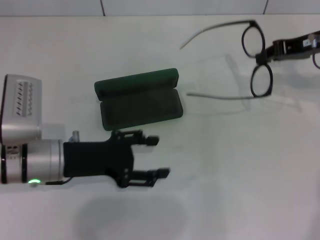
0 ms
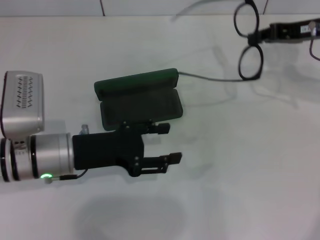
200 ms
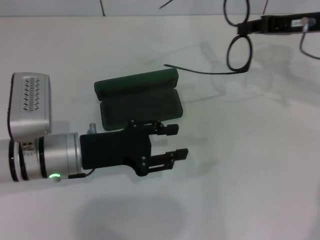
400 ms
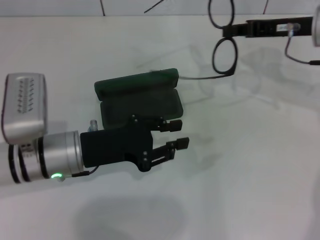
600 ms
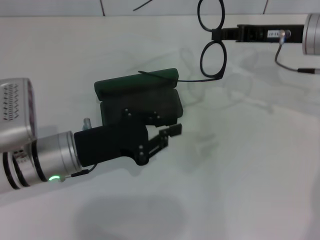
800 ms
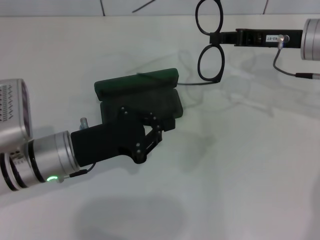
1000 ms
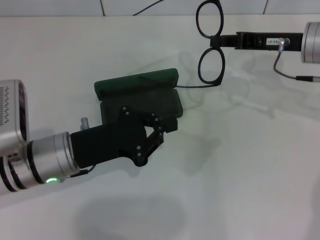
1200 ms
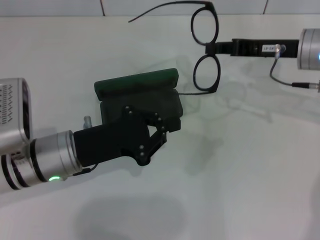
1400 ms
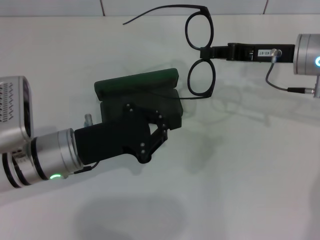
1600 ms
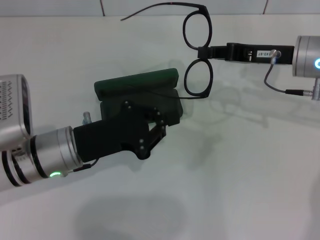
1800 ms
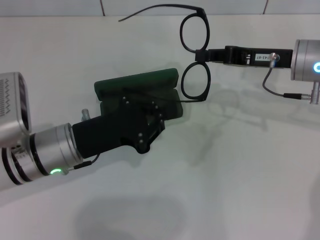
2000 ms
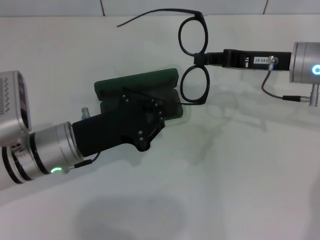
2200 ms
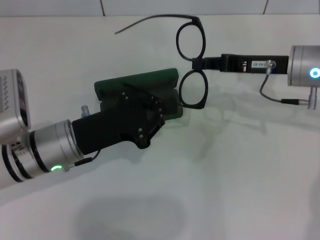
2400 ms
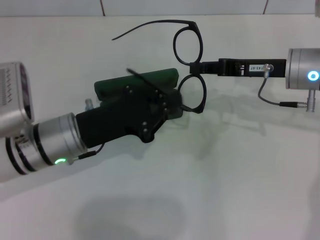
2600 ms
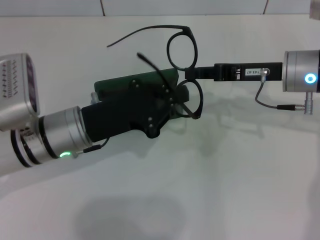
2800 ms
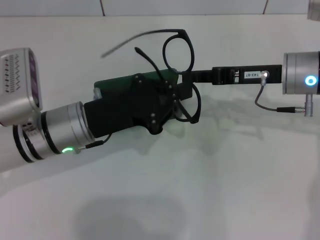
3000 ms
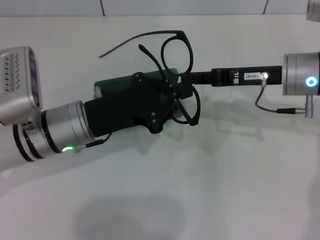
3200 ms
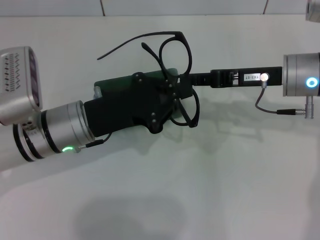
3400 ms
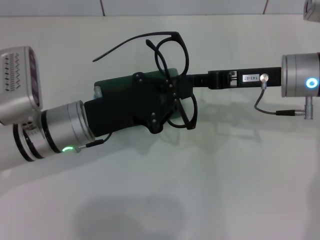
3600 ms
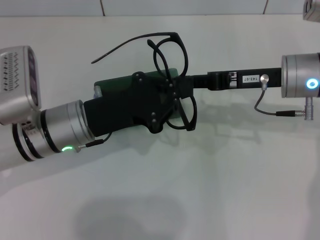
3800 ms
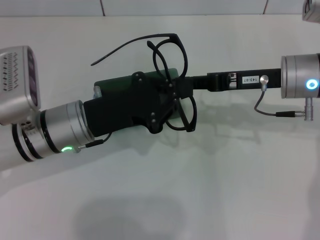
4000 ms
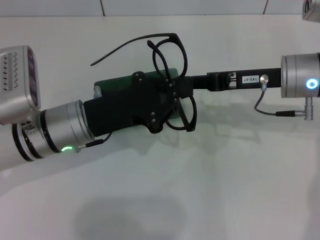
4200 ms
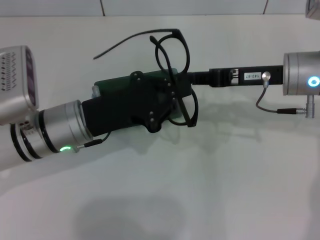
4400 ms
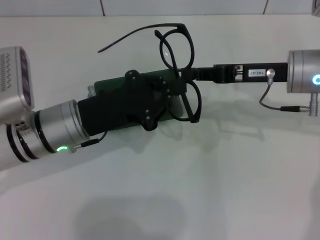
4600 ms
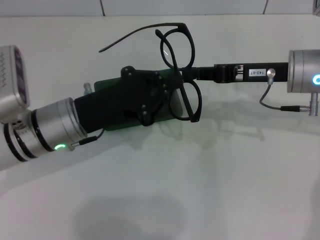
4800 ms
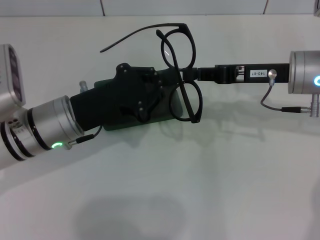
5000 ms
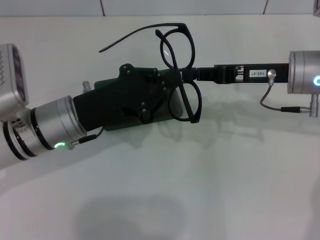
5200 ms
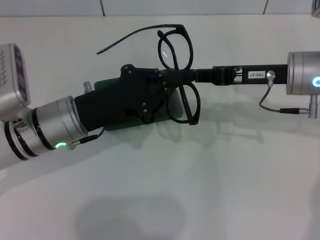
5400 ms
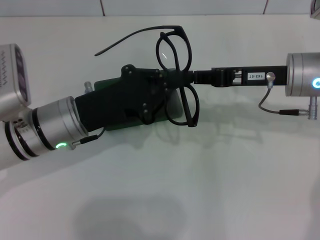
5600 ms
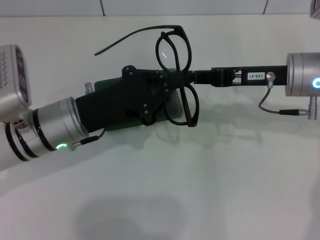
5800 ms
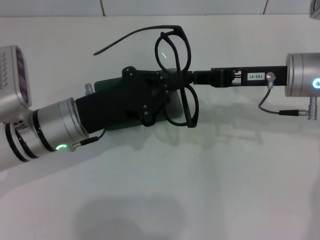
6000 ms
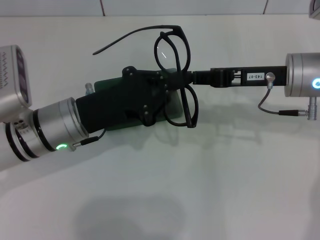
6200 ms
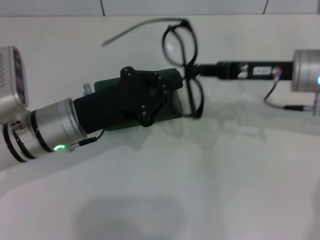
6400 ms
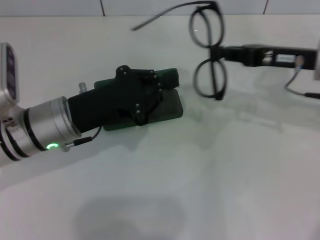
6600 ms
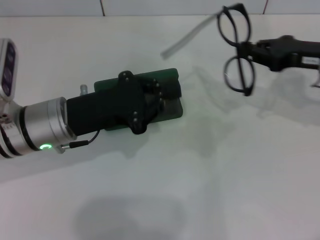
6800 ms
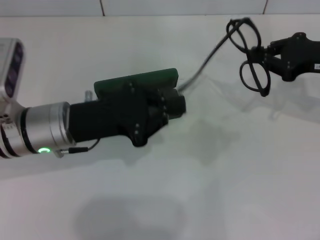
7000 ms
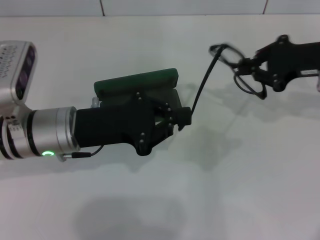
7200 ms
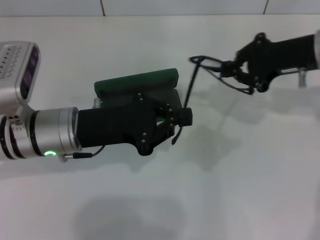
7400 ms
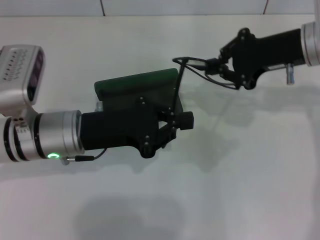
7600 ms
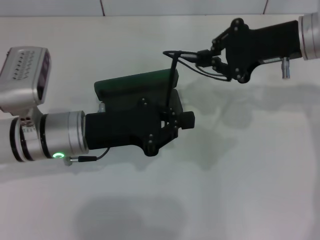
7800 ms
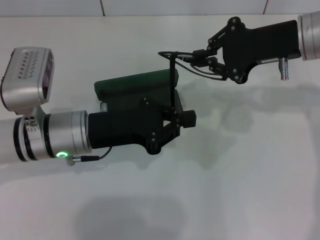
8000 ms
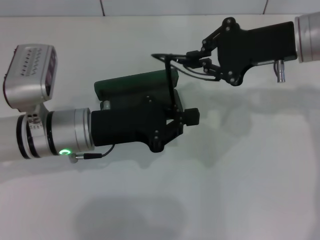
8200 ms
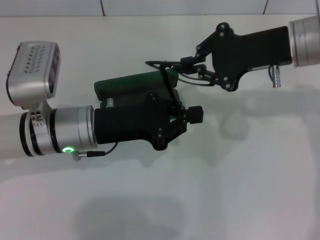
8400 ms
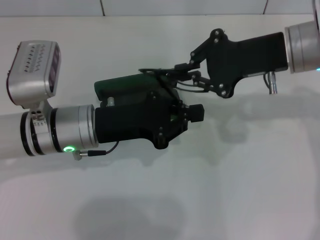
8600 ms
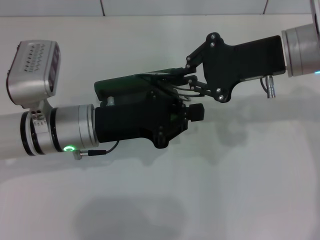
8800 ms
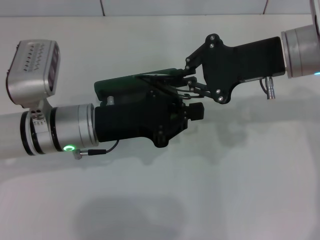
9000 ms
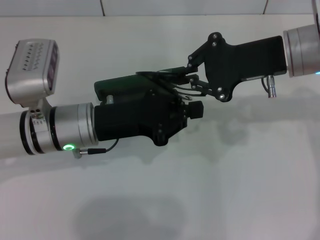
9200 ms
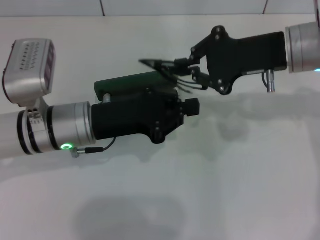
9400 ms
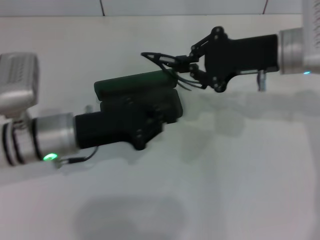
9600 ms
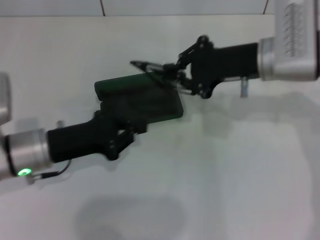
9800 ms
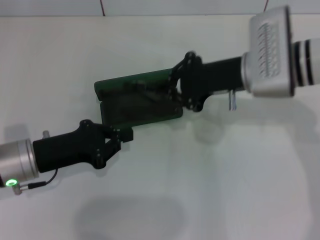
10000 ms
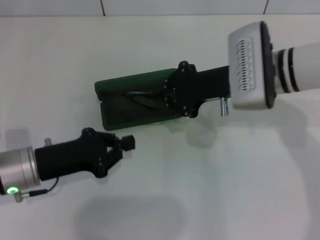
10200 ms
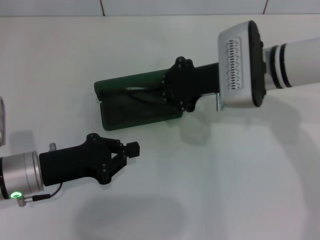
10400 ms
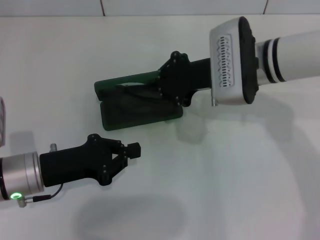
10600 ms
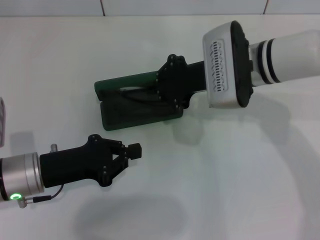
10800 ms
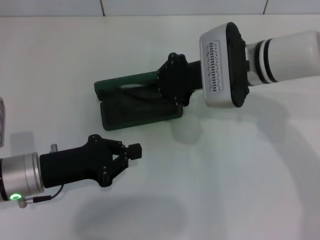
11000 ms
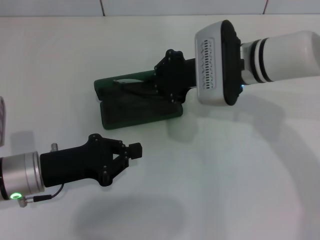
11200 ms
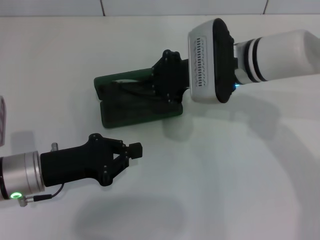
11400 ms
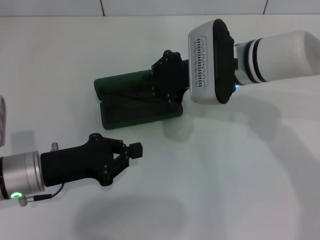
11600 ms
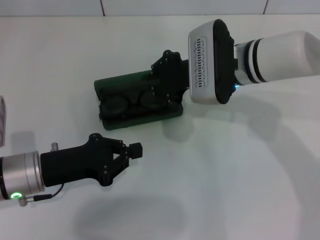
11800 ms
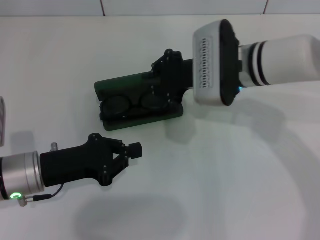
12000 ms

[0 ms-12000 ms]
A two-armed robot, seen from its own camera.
Step, 0 ms to 8800 ms: Fold the frame with your left hand.
Step, 9000 ms to 12000 ms: Put the glasses into the case with your right hand.
0 ms to 1600 ms: The left gripper closes its fingers, while the right gripper changes place by approximately 5 cm.
3000 ms to 4400 ms: There are only small adjustments of the grippers.
4400 ms to 6000 ms: The two grippers keep their place.
6000 ms to 7600 ms: The right gripper goes to the right and returns, approximately 10 cm each way.
7600 ms to 9000 ms: The grippers move only a little.
9000 ms to 10400 ms: The right gripper heads downward and to the left, covering approximately 10 cm. The left gripper moves to the left, some 10 cm.
10400 ms to 12000 ms: There are only small adjustments of the grippers.

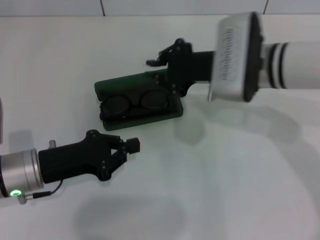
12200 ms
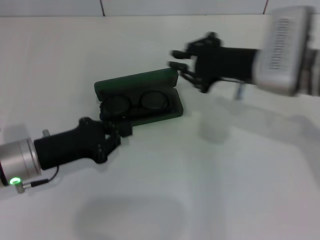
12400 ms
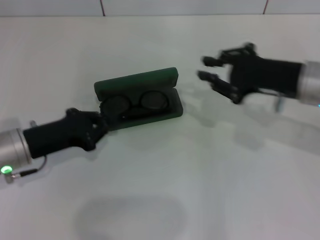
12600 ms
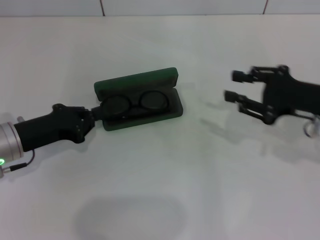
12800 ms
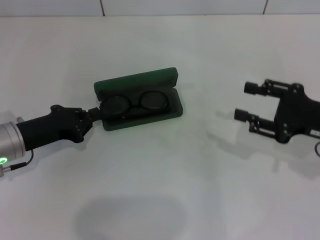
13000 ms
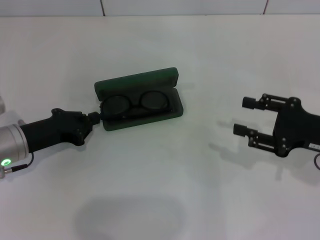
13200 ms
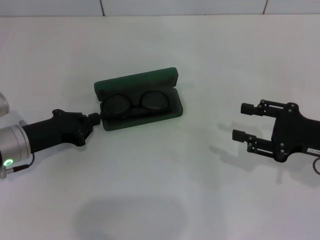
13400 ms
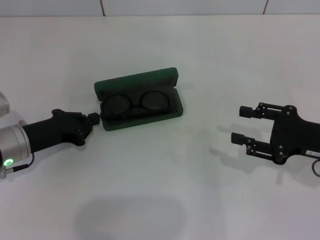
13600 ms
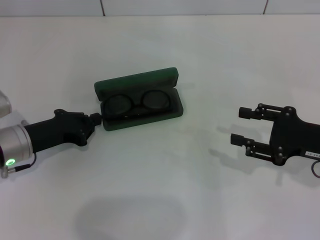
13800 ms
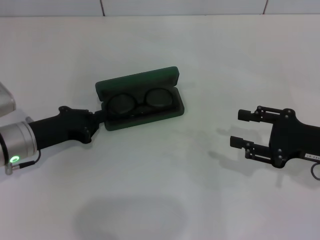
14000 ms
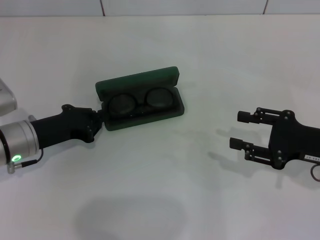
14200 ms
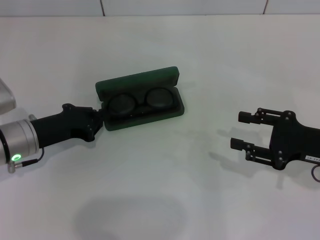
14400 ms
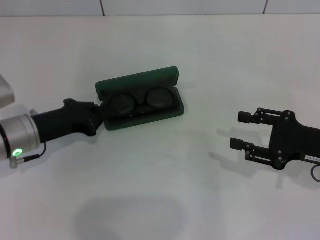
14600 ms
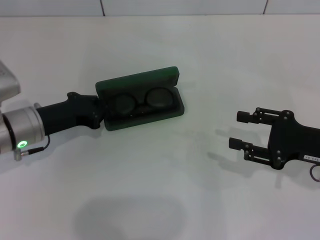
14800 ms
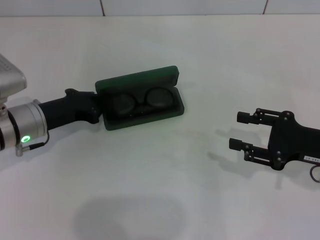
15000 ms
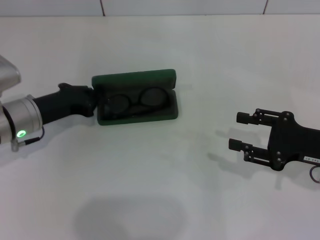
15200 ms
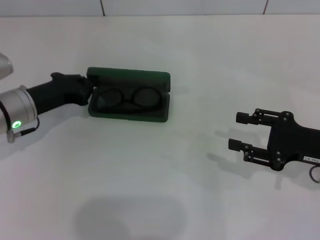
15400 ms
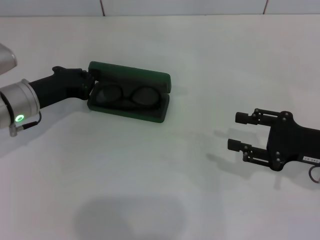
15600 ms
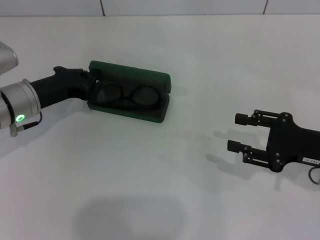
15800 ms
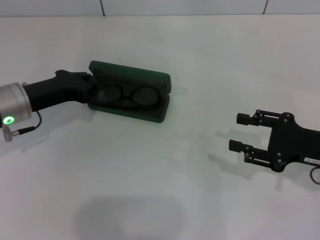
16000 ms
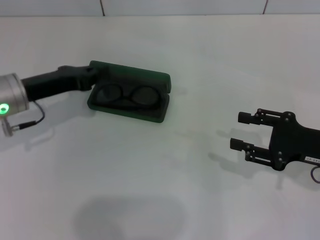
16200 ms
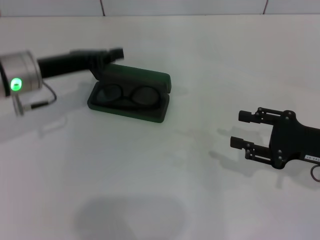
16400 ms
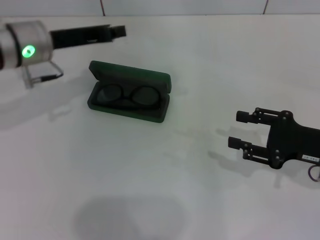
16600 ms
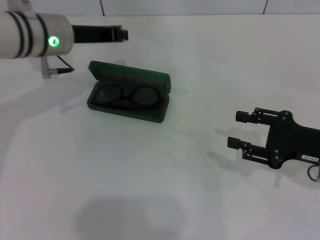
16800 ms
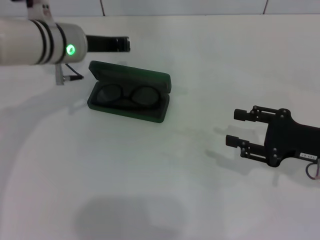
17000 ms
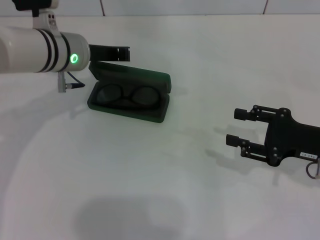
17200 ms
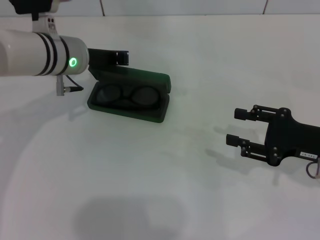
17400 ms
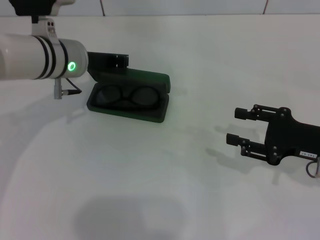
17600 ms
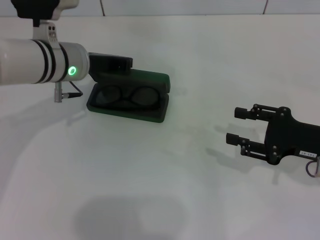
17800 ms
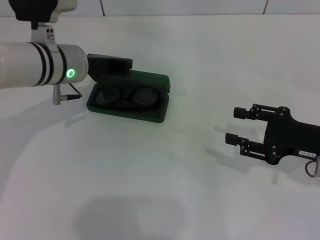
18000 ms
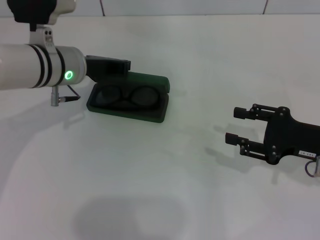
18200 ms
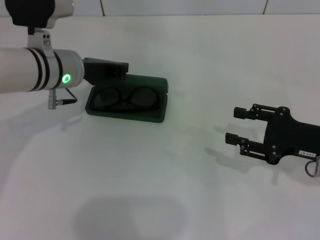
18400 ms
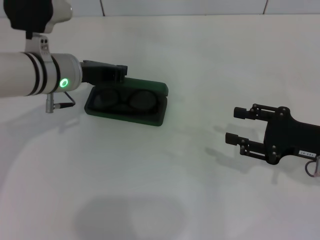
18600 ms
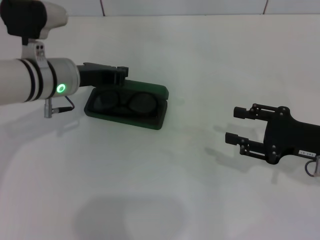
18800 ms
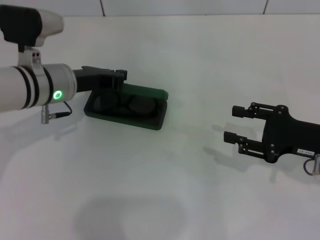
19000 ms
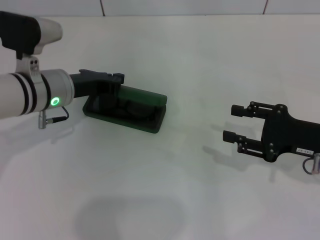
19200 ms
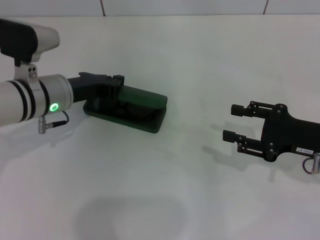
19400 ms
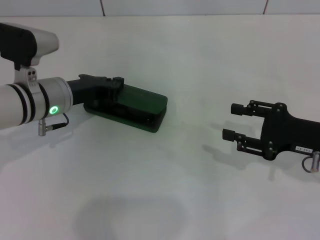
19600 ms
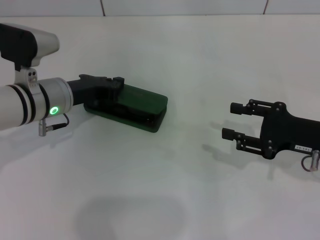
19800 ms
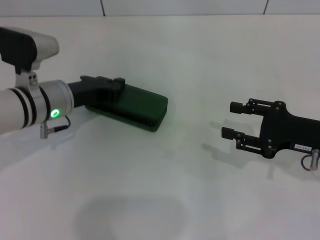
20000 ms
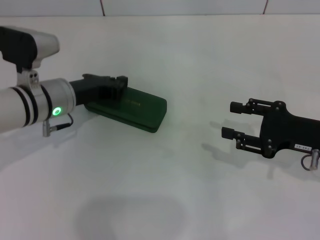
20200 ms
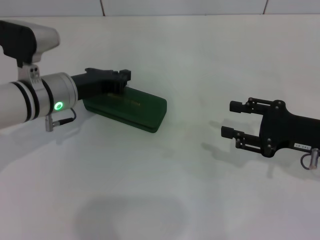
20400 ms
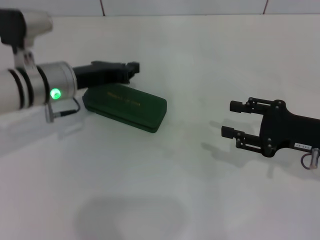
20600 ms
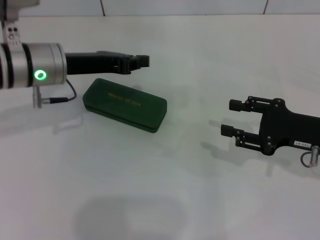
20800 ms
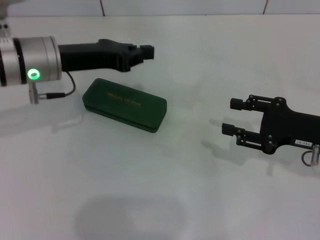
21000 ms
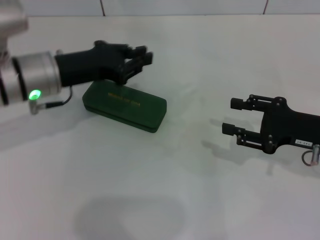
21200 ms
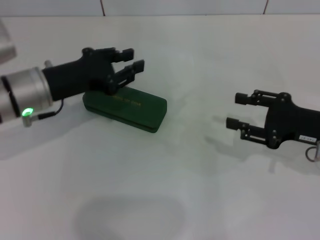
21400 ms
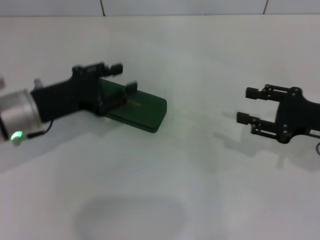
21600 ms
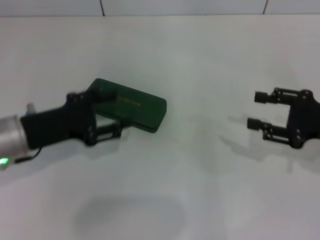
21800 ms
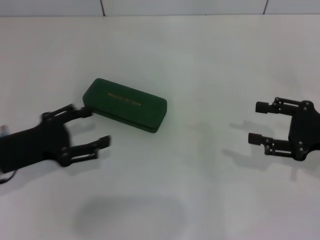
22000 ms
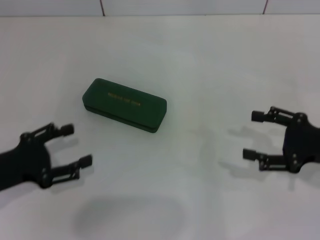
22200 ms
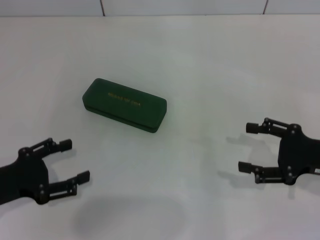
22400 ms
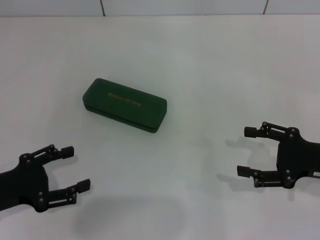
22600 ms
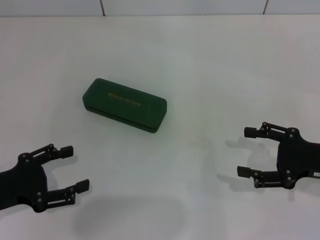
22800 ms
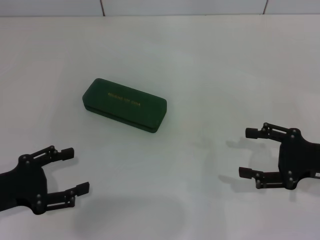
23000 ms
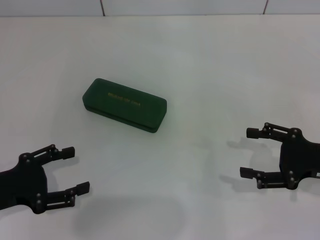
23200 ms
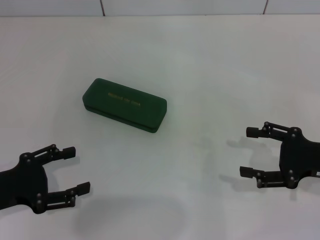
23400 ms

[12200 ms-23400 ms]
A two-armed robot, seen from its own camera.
Step, 12200 ms to 20200 ms: Close the glasses case with your left hand.
12200 ms to 13800 ms: The right gripper travels to the right, backward and downward by about 20 cm, and opens its fingers; the left gripper changes place by some 5 cm.
13800 ms to 15400 ms: The left gripper shifts by roughly 5 cm.
15400 ms to 17000 ms: The left gripper heads to the right, upward and forward, covering roughly 15 cm.
17000 ms to 18600 ms: The grippers move only a little.
18600 ms to 20200 ms: The grippers make only small movements.
20200 ms to 21800 ms: The left gripper moves backward and to the left, roughly 10 cm, and opens.
21800 ms to 23400 ms: The left gripper travels backward and to the left by about 10 cm.
